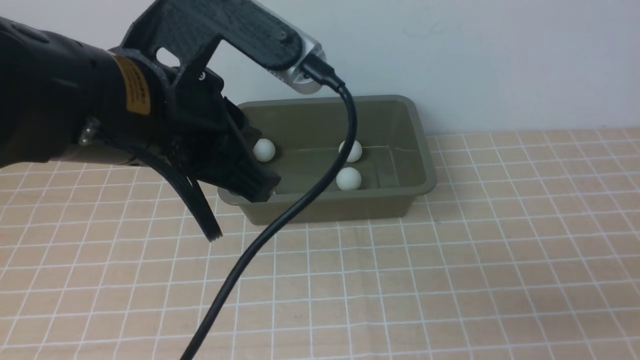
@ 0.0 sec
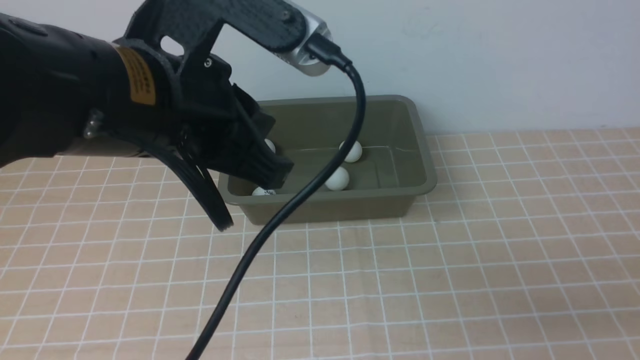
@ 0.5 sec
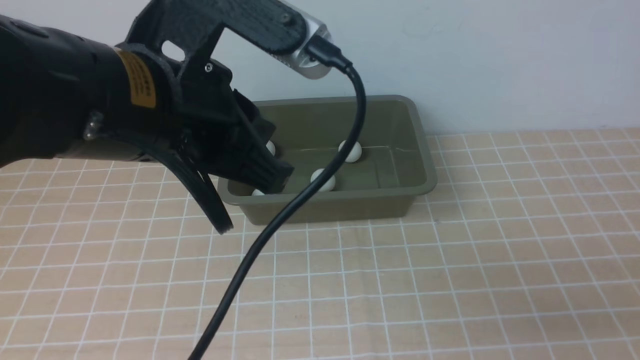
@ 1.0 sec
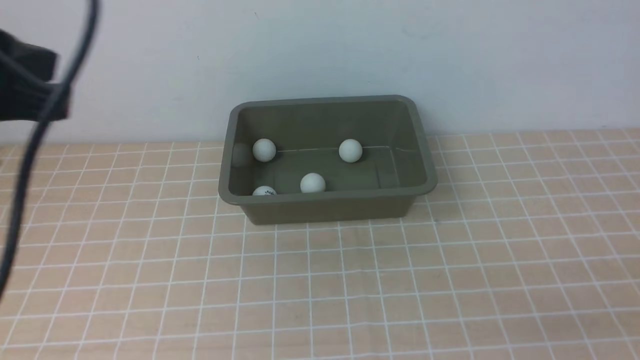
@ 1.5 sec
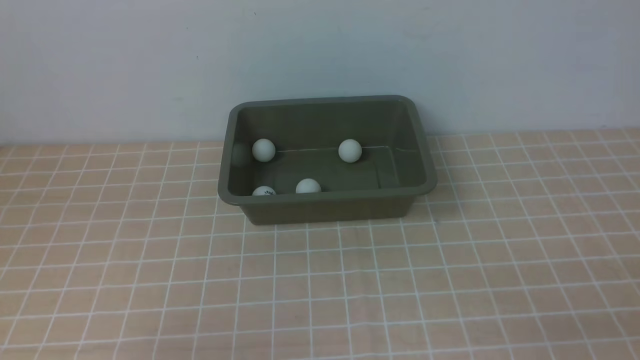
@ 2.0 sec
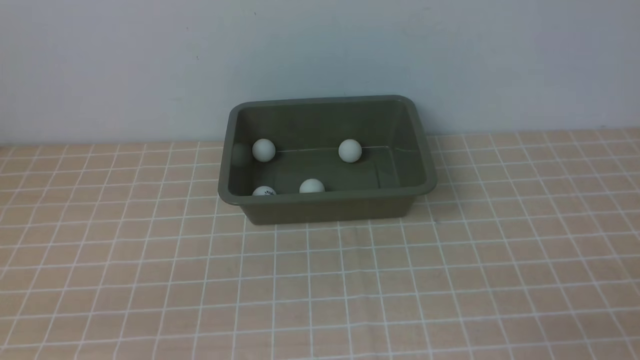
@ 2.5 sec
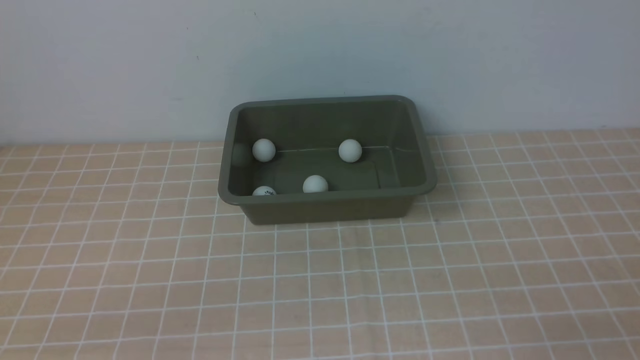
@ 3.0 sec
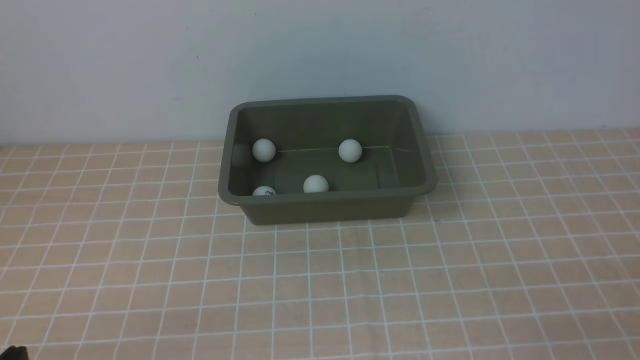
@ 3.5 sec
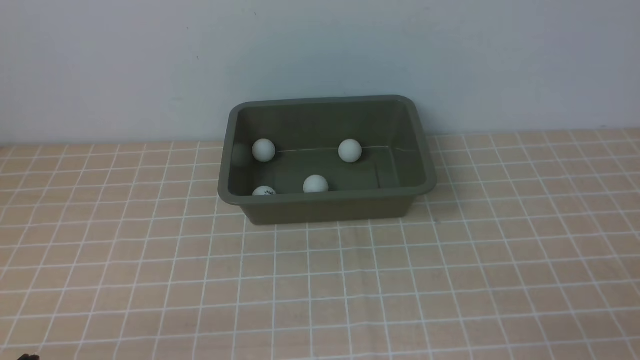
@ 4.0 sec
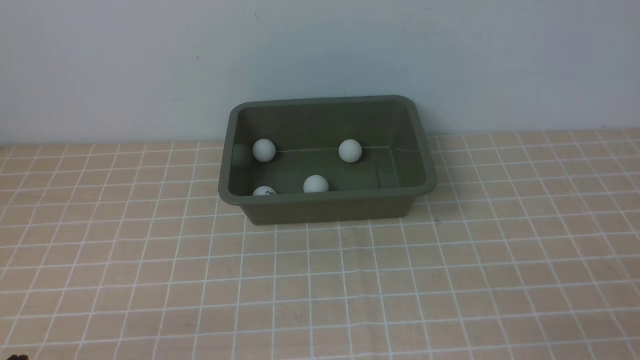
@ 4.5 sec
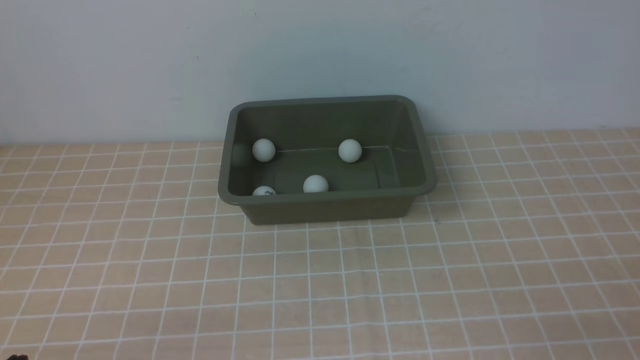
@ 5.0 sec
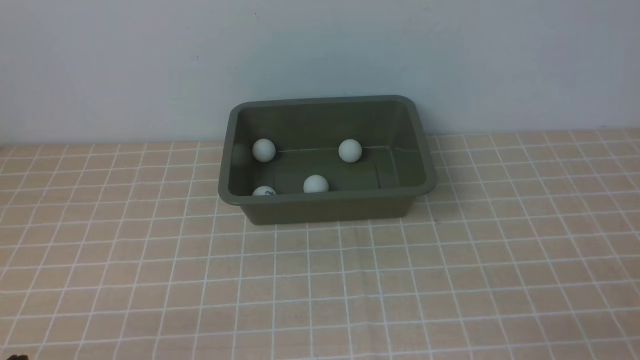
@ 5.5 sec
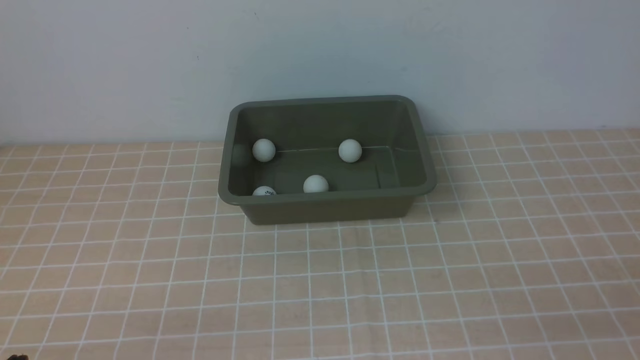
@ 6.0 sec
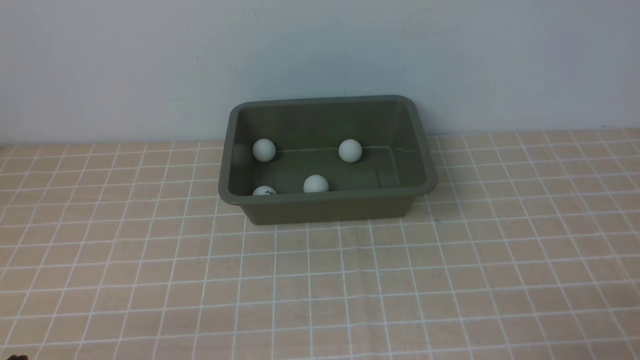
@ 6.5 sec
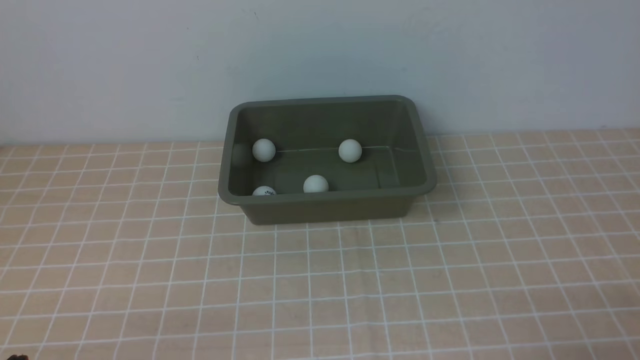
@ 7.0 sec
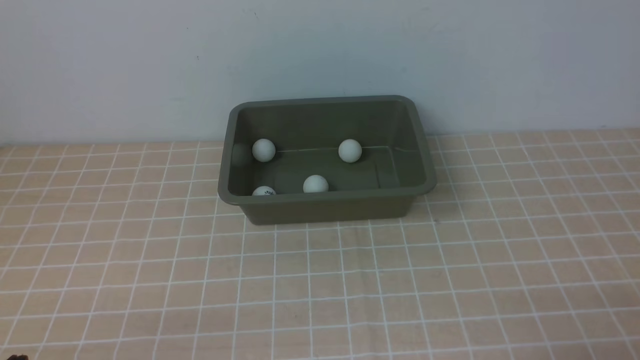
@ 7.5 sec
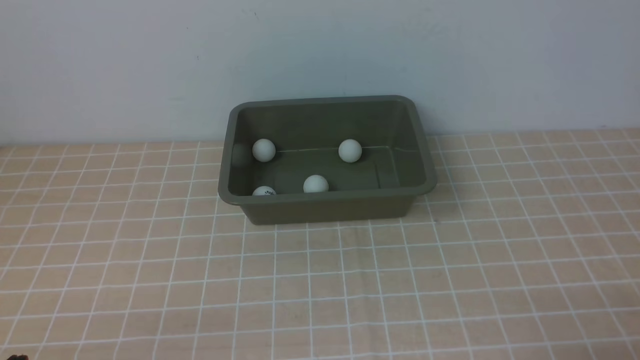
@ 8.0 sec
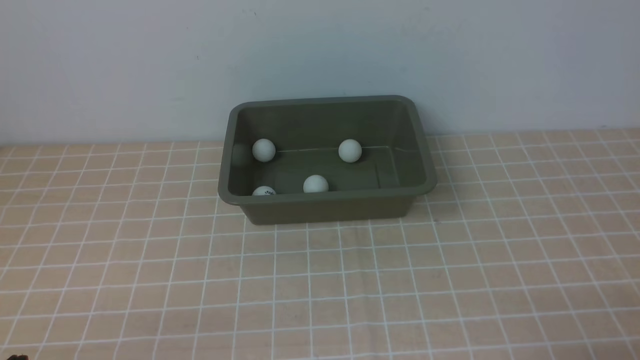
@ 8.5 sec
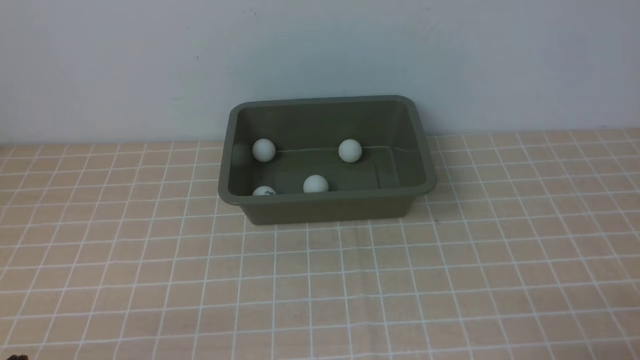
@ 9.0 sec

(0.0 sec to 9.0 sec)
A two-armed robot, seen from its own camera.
0.0 sec - 2.0 sec: The left gripper goes approximately 20 cm to the left and backward.

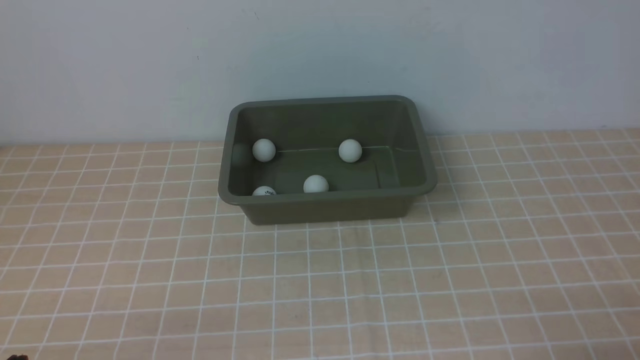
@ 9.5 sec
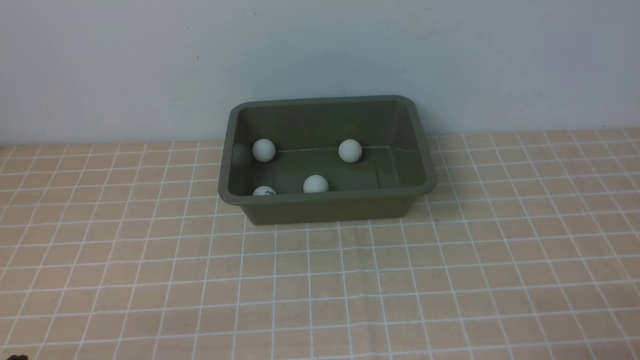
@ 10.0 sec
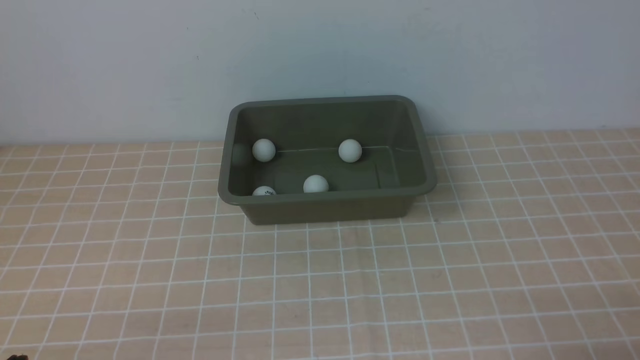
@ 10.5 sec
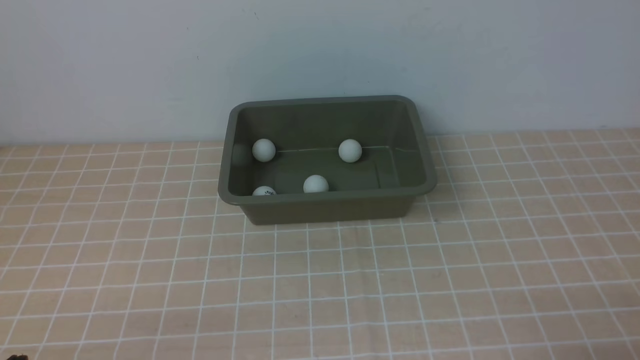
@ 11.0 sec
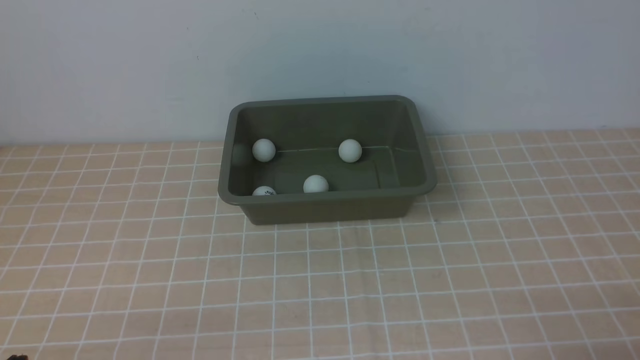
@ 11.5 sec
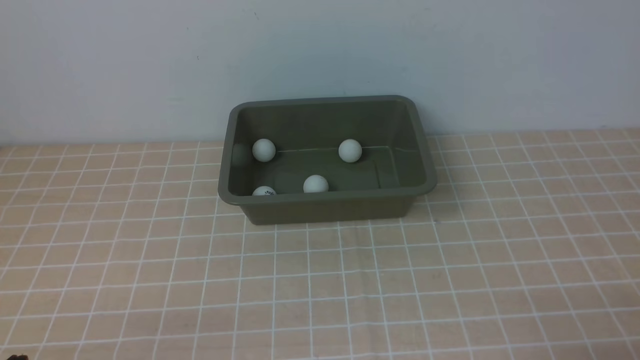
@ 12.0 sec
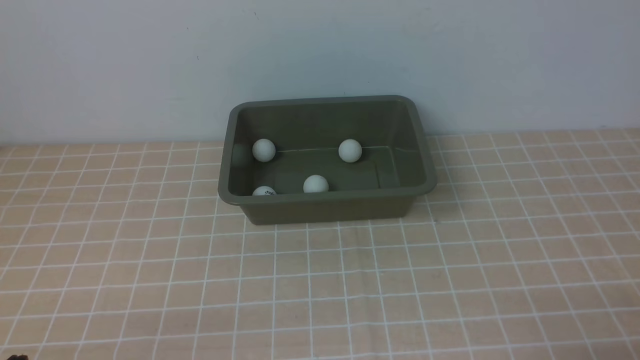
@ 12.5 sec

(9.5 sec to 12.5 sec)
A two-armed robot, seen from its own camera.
9.5 sec - 12.5 sec: Neither gripper changes place.
